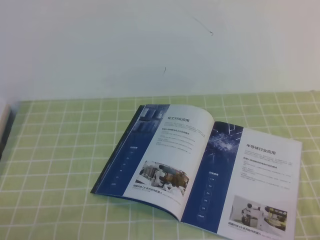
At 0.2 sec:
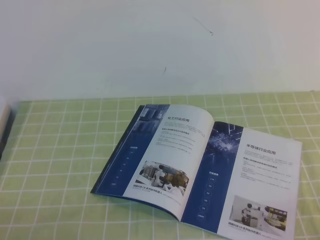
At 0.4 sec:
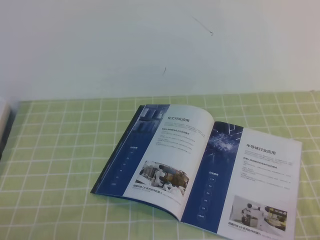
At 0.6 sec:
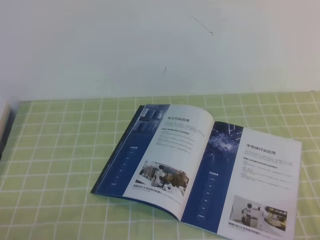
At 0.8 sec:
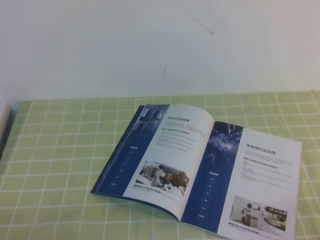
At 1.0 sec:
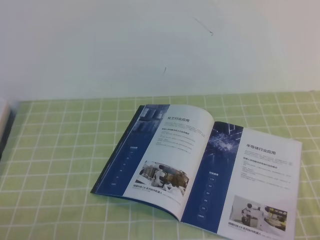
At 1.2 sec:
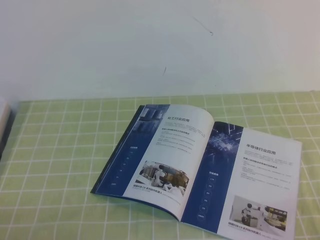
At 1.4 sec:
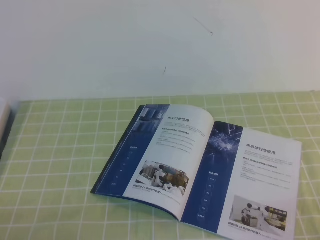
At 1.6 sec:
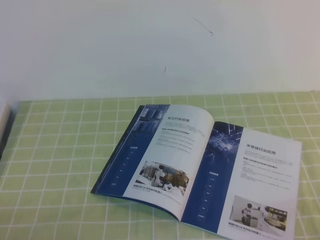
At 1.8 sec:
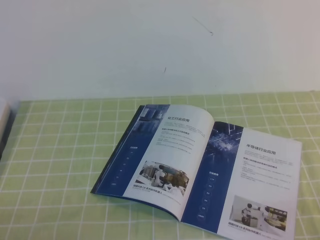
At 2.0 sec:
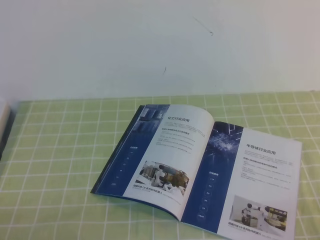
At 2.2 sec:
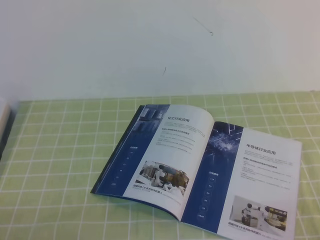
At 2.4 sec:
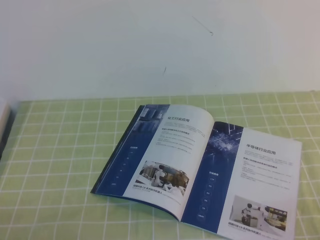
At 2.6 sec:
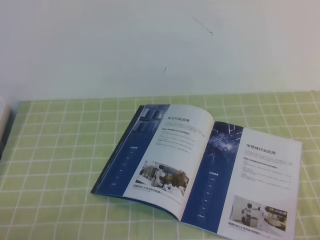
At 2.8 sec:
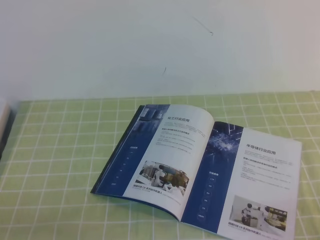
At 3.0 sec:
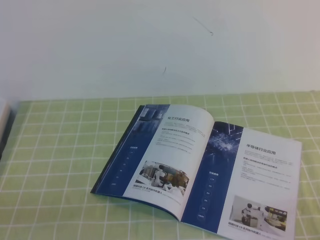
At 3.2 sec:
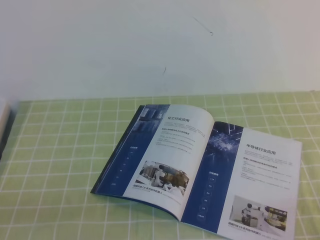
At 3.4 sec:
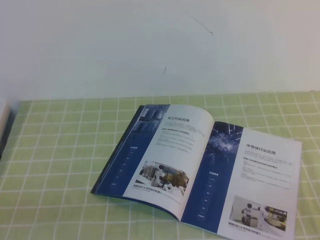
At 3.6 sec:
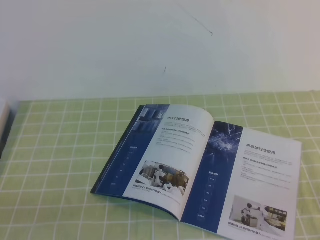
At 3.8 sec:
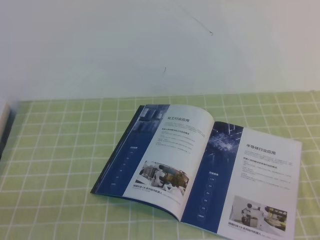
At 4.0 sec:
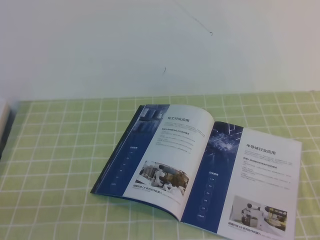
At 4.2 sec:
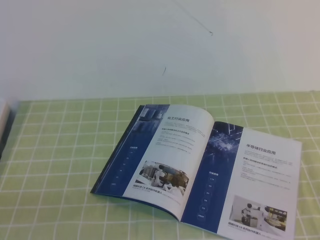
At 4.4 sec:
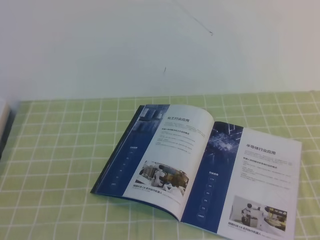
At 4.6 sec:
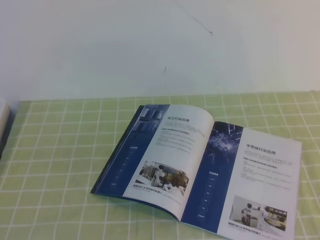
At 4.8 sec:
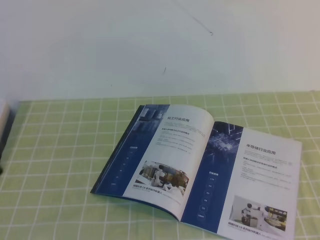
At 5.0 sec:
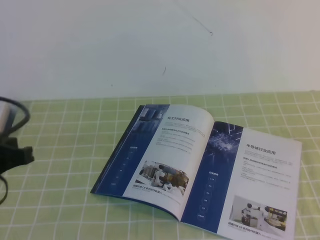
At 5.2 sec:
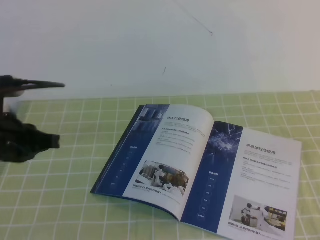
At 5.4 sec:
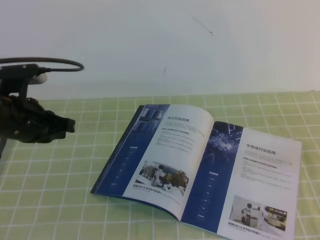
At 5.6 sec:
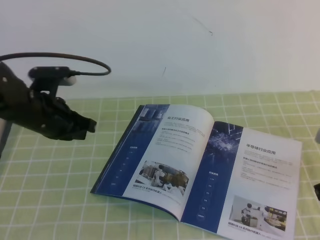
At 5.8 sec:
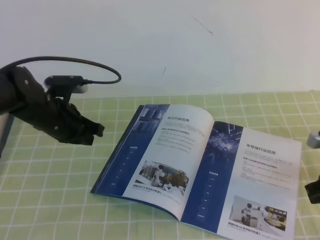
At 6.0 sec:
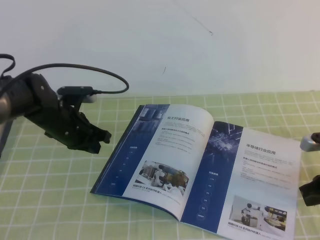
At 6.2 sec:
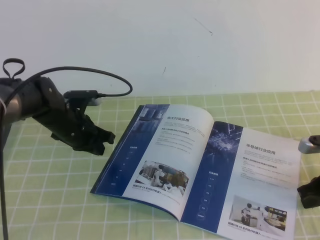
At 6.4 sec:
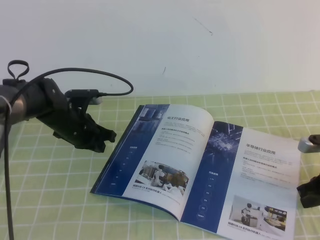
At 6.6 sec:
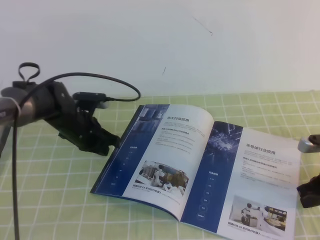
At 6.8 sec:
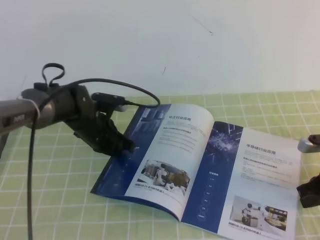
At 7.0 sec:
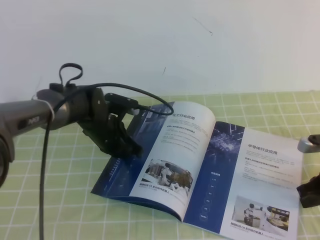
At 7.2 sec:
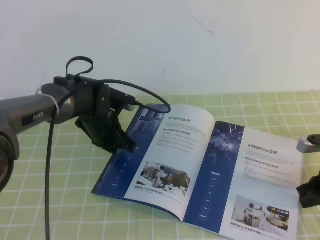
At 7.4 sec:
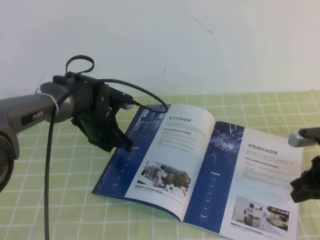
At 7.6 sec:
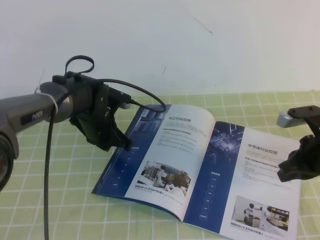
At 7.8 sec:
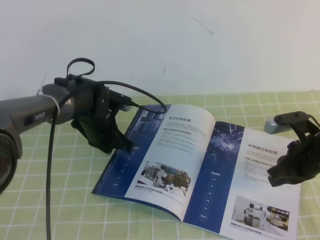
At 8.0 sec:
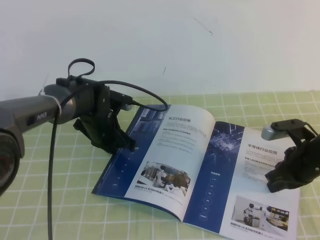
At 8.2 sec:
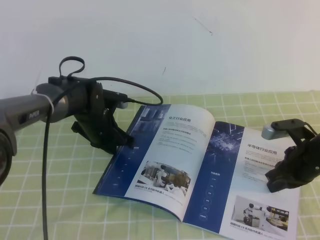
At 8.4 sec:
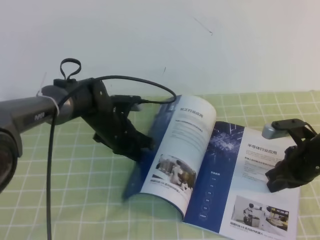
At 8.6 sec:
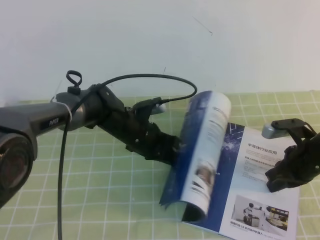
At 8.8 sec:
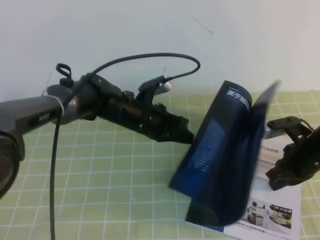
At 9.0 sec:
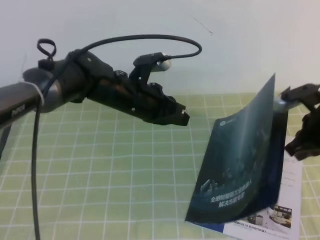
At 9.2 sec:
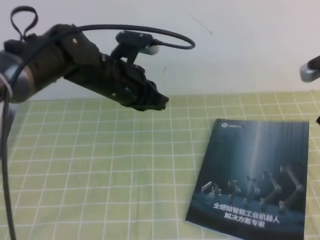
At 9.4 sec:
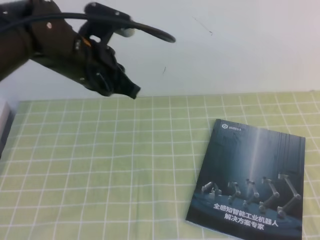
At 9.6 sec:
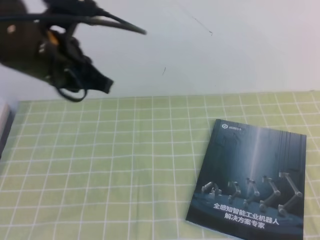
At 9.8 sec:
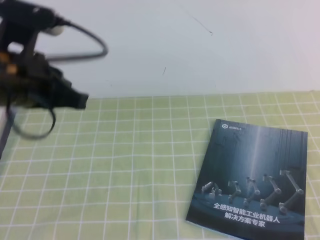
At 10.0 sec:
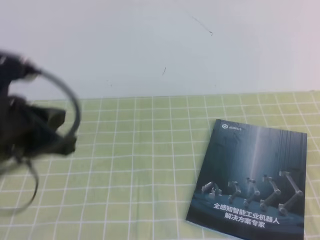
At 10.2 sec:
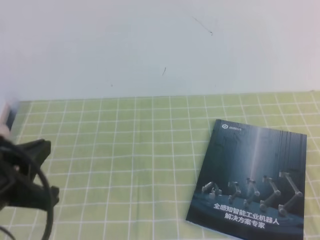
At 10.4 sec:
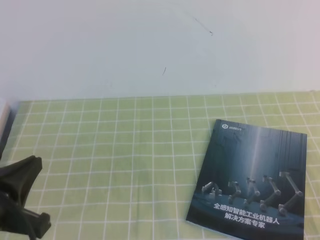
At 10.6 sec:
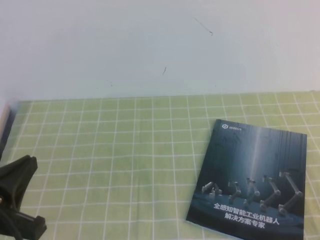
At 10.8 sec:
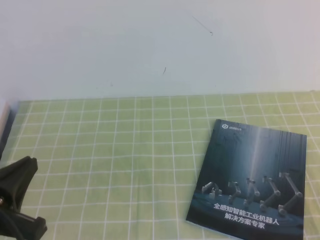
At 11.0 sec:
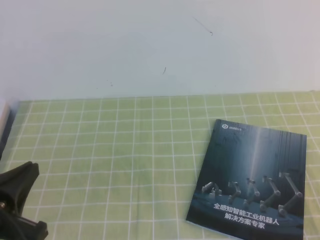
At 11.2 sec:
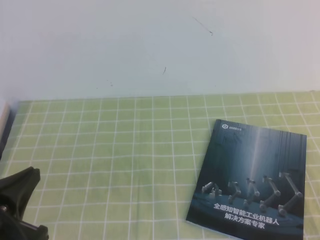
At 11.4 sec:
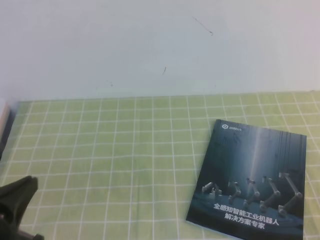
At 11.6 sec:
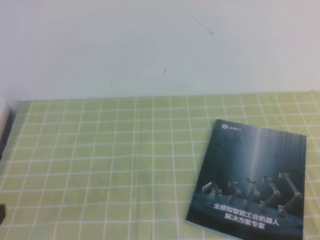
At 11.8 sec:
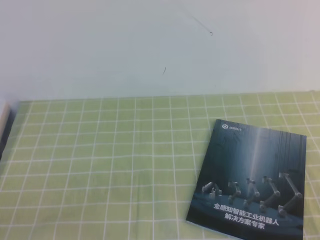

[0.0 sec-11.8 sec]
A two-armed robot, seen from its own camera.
Task of the whole recording: on the green tablecloth, hold the book with one hand and close it with the other.
0.0 sec to 1.4 sec: Both grippers stay about where they are.
4.4 sec to 6.0 sec: The left gripper moves forward, roughly 35 cm; the right gripper shifts about 30 cm forward and downward.
6.0 sec to 7.4 sec: The left gripper heads to the right, covering some 5 cm.
7.4 sec to 8.8 sec: The right gripper moves approximately 5 cm. The left gripper shifts roughly 5 cm to the right.
8.8 sec to 10.4 sec: The left gripper shifts approximately 30 cm backward and to the left. The right gripper goes some 35 cm backward and upward.
10.4 sec to 11.8 sec: The left gripper is displaced backward by approximately 10 cm.
